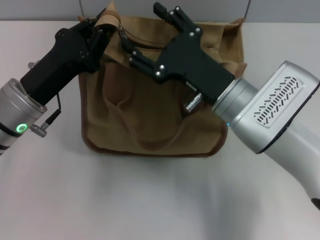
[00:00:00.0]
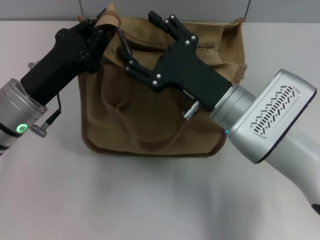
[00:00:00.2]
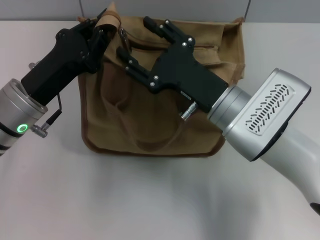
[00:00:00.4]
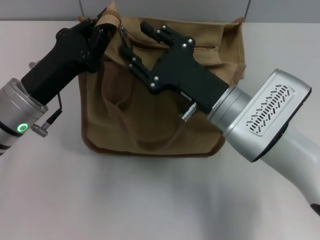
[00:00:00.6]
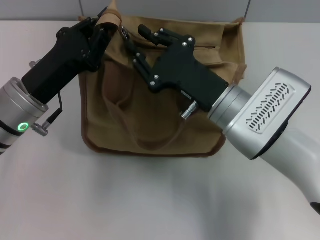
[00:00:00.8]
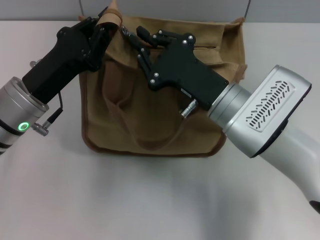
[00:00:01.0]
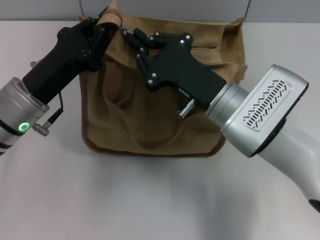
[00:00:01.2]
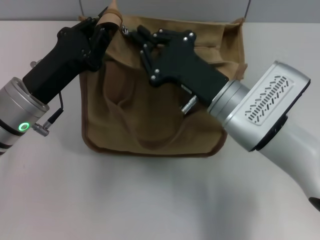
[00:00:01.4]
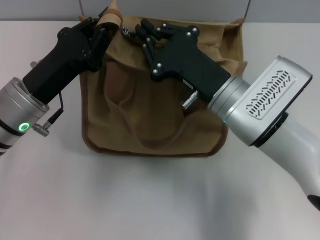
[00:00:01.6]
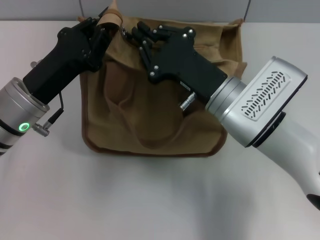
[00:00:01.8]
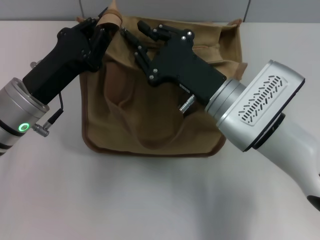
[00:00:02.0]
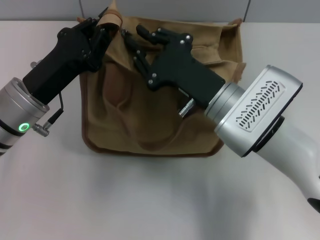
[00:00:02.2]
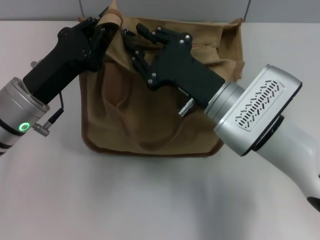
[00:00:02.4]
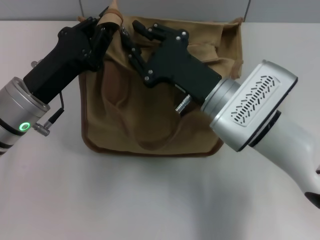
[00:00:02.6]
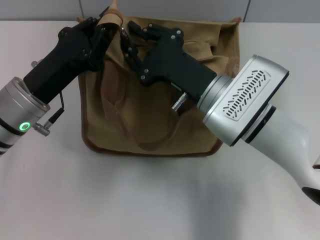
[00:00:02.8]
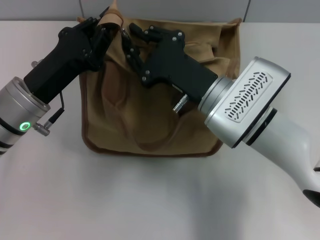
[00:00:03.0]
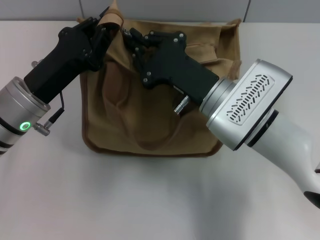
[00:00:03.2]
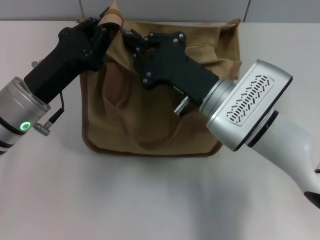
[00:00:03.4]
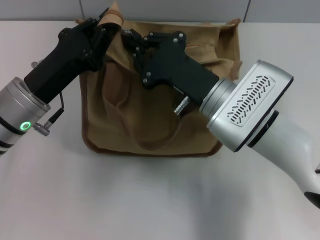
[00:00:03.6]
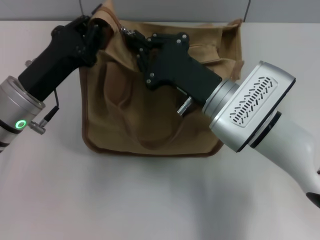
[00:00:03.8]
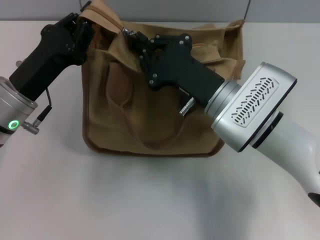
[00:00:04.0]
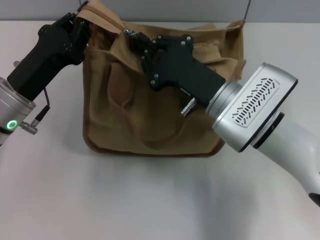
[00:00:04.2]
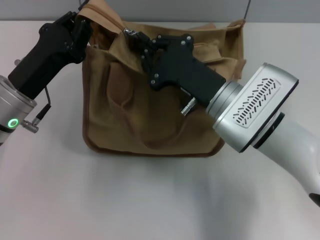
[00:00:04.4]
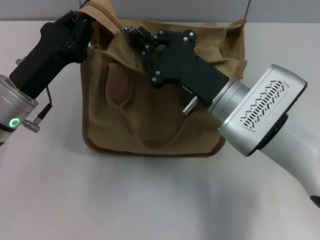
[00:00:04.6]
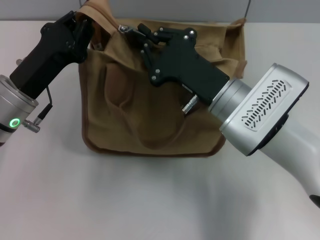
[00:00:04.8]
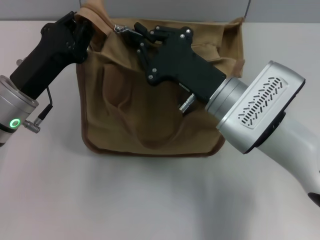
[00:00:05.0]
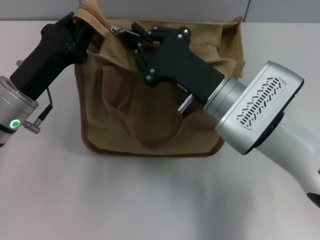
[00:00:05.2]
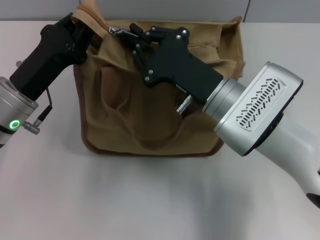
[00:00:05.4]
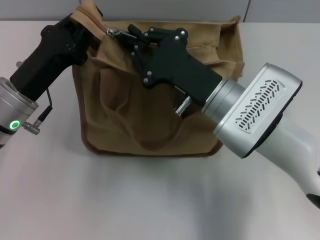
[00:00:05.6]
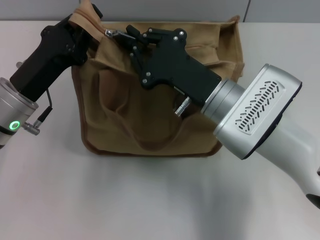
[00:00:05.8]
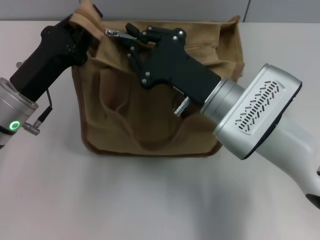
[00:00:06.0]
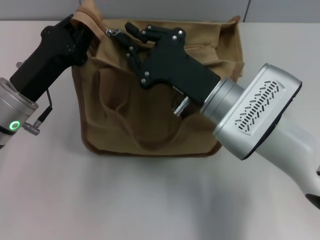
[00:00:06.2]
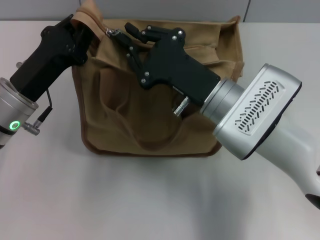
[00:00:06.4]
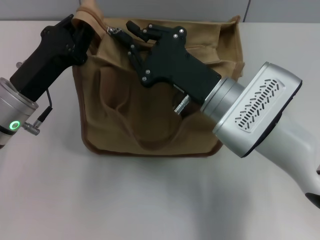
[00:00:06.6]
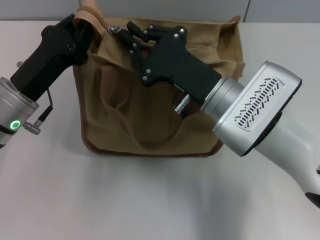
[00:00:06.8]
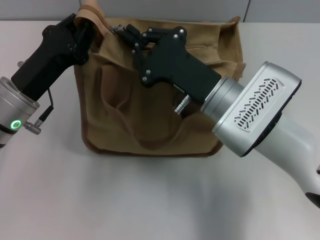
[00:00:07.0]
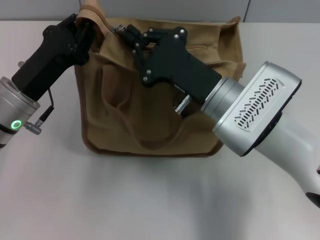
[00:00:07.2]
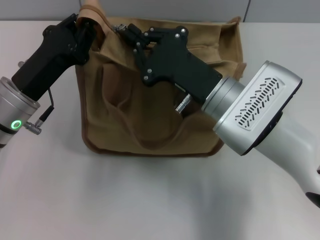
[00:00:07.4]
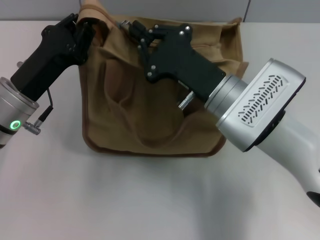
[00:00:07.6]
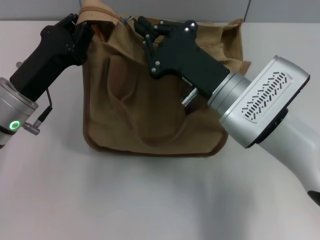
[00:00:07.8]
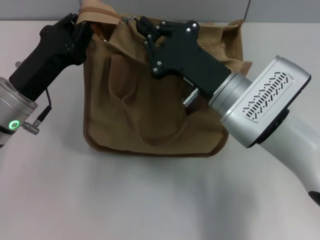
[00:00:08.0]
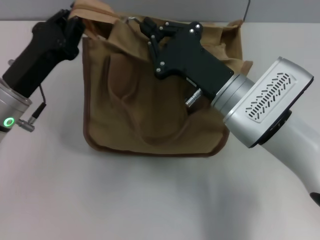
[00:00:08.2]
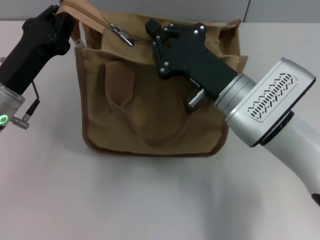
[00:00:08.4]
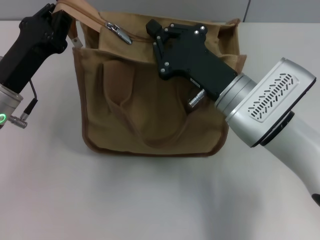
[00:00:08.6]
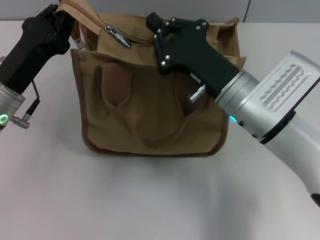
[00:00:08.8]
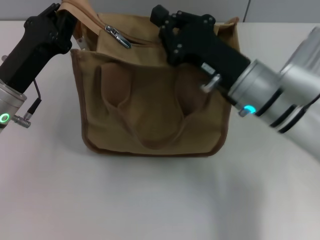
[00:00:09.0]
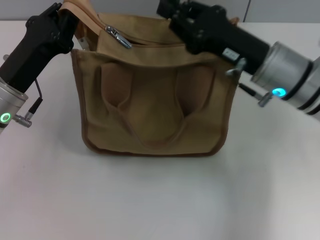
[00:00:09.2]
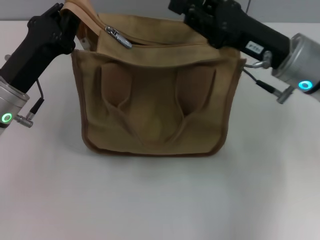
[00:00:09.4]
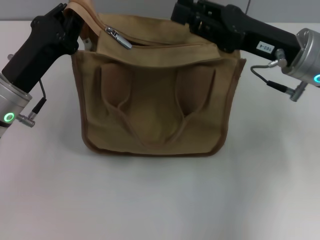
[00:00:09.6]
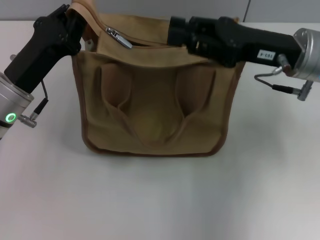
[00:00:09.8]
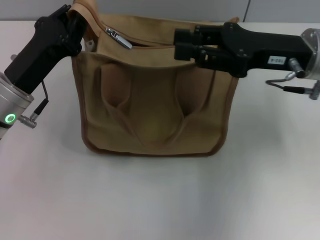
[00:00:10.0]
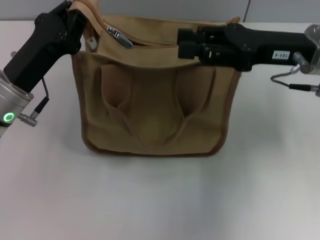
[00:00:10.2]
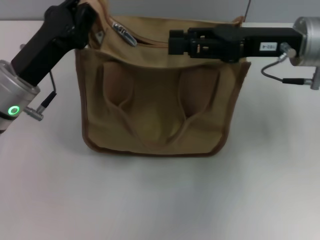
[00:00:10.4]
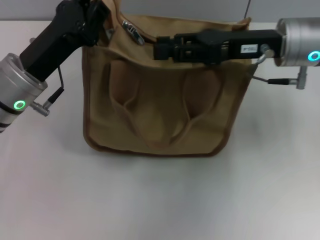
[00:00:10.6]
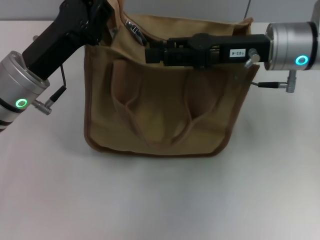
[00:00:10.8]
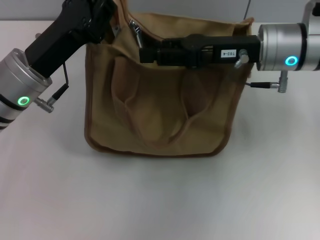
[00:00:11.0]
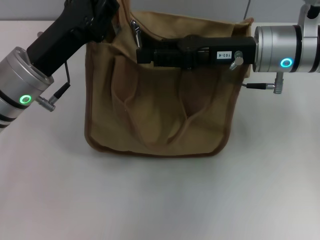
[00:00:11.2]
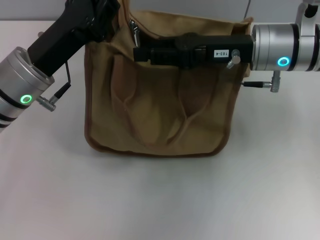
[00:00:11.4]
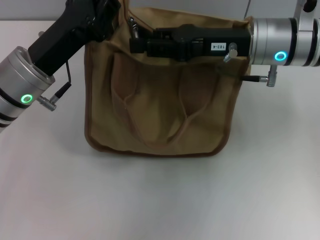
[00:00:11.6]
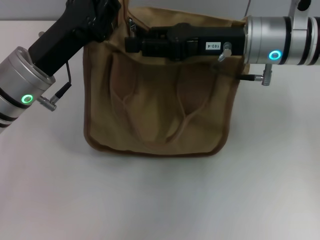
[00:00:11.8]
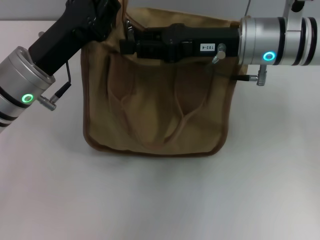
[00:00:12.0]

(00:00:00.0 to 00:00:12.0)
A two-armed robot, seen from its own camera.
00:00:00.0 - 00:00:01.6: The right gripper closes.
00:00:01.6 - 00:00:06.0: The grippers make only small movements.
00:00:06.0 - 00:00:07.6: Neither gripper changes place.
00:00:09.0 - 00:00:10.4: The right gripper is displaced to the right, upward and forward by approximately 10 cm, and opens up.
00:00:10.4 - 00:00:12.0: The right gripper goes approximately 5 cm to the left.

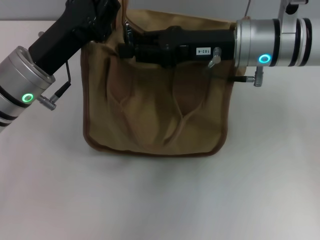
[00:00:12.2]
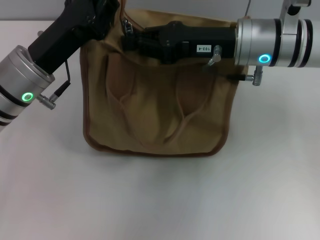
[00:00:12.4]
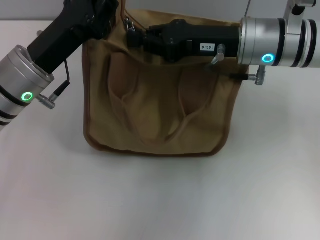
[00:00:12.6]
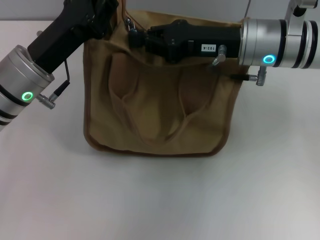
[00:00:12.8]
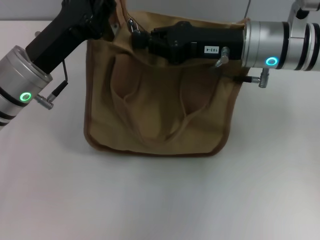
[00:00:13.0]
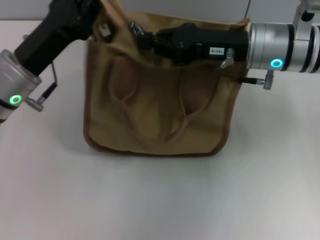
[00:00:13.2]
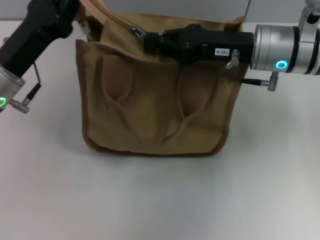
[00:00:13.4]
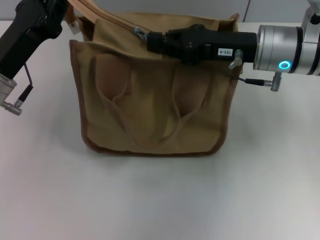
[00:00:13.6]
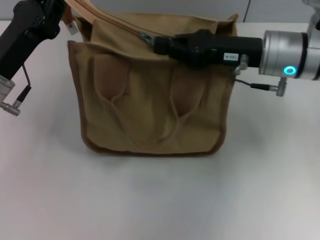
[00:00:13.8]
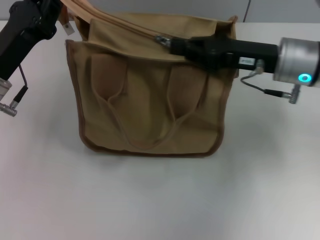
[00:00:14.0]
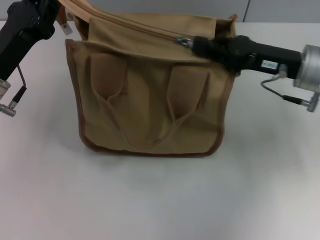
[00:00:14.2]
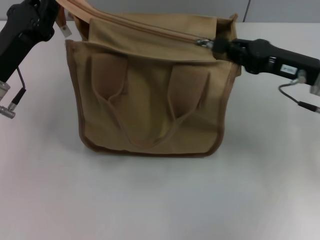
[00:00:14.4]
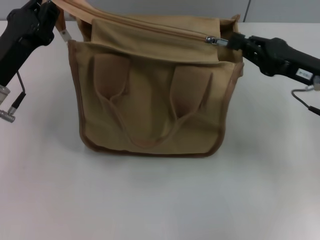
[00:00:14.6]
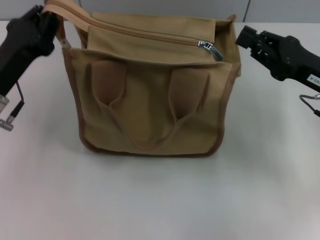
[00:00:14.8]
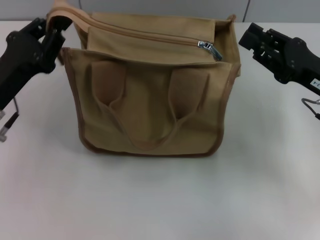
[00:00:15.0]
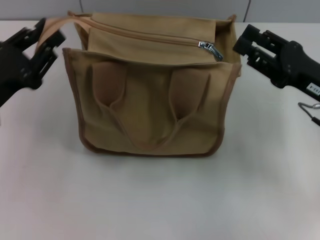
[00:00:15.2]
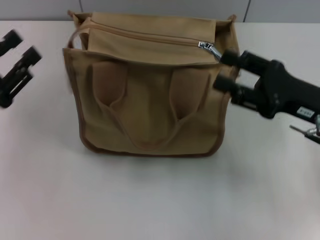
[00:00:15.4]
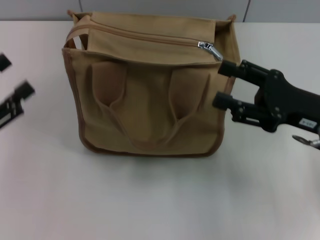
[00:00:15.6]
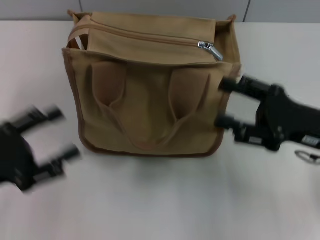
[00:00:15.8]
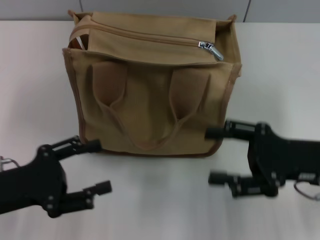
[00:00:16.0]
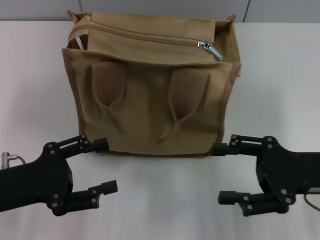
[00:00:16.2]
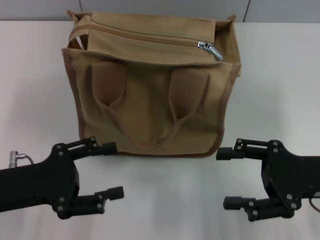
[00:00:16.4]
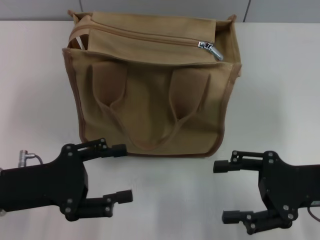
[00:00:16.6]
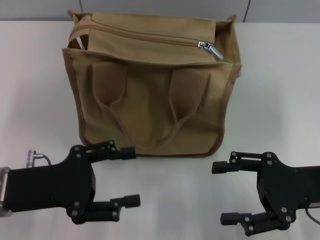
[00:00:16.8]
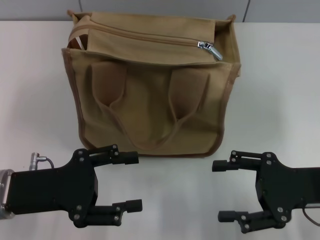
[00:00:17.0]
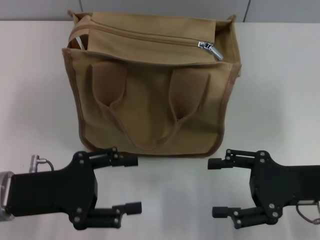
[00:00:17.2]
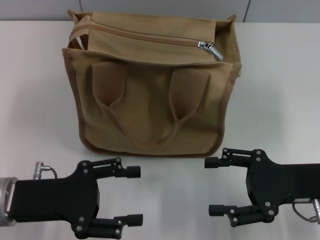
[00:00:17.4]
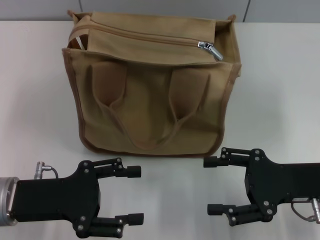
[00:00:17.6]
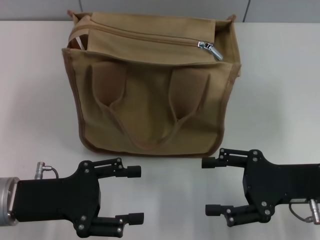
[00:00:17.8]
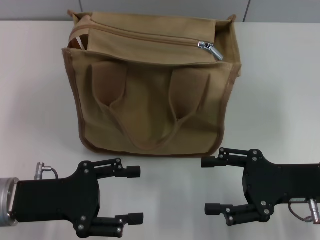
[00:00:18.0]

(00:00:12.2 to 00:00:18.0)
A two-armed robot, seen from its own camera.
Step, 00:00:12.2 - 00:00:14.6: Pull up the zipper with your right hand.
Step, 00:00:14.8 - 00:00:15.2: Grab the zipper with your left hand.
00:00:12.2 - 00:00:13.6: The right gripper closes.
00:00:13.6 - 00:00:15.0: The right gripper shifts roughly 15 cm to the right and backward.
00:00:15.0 - 00:00:16.6: Both grippers move backward, about 5 cm. The left gripper opens up. Meanwhile the right gripper opens.
00:00:16.6 - 00:00:18.0: The grippers move only a little.
